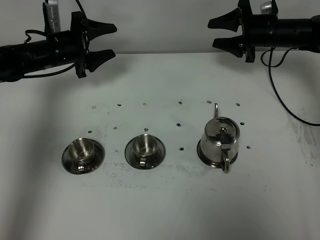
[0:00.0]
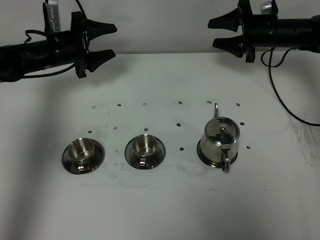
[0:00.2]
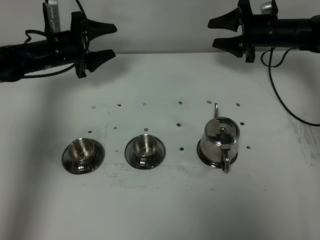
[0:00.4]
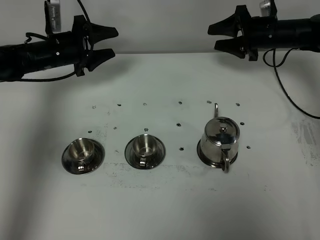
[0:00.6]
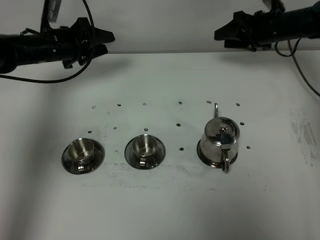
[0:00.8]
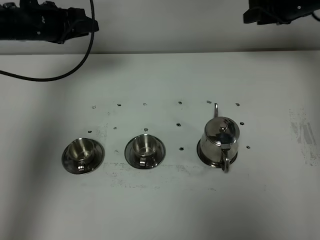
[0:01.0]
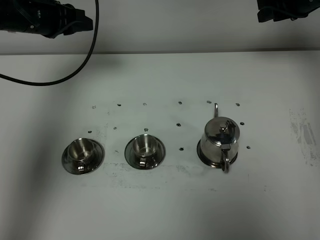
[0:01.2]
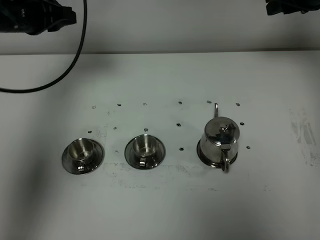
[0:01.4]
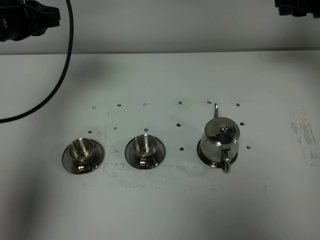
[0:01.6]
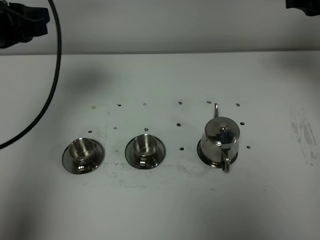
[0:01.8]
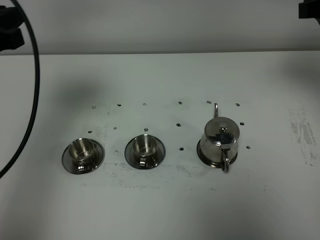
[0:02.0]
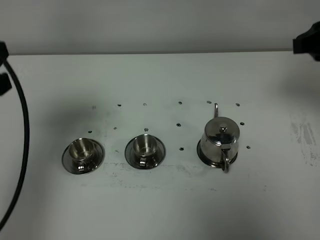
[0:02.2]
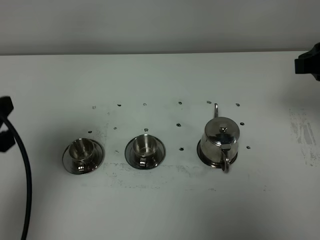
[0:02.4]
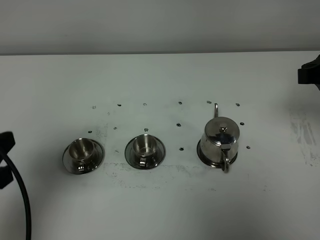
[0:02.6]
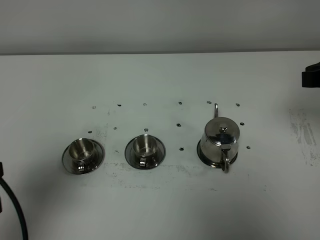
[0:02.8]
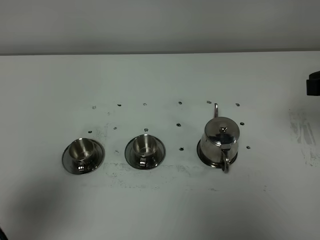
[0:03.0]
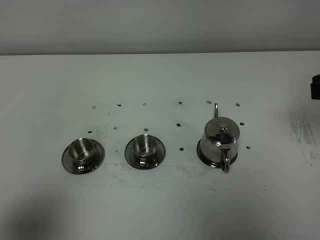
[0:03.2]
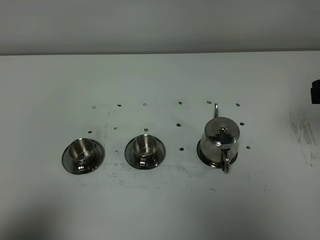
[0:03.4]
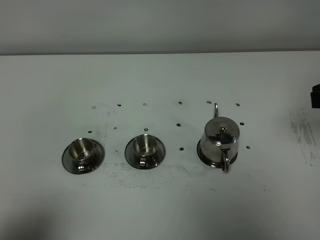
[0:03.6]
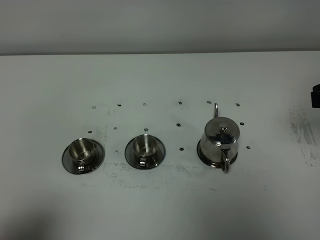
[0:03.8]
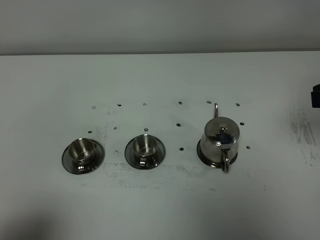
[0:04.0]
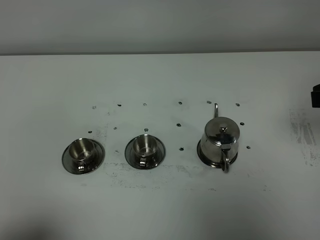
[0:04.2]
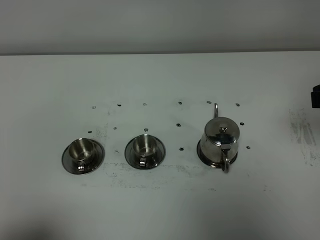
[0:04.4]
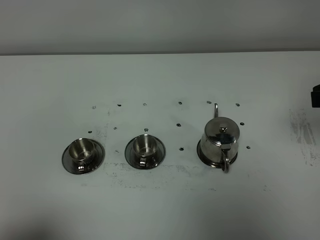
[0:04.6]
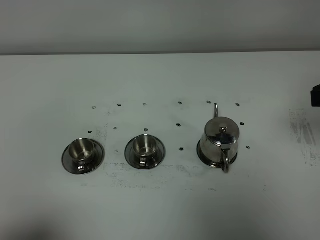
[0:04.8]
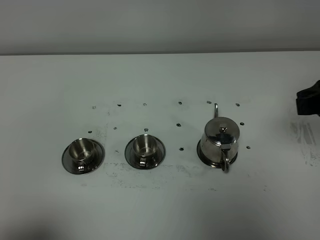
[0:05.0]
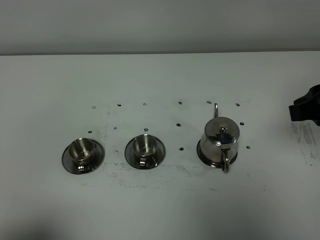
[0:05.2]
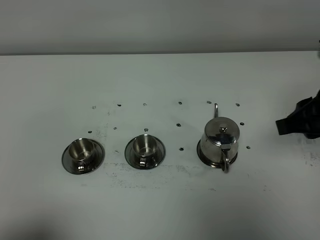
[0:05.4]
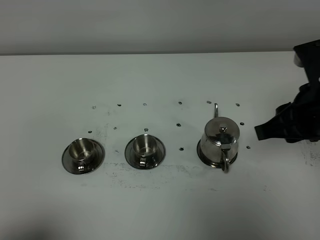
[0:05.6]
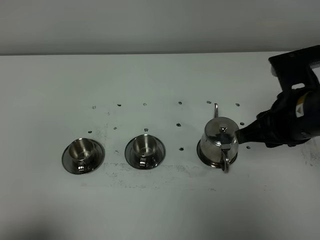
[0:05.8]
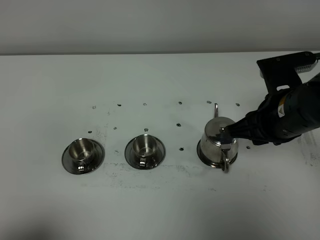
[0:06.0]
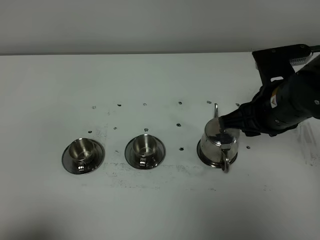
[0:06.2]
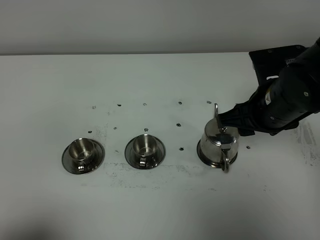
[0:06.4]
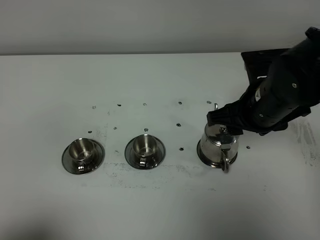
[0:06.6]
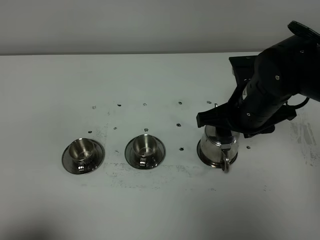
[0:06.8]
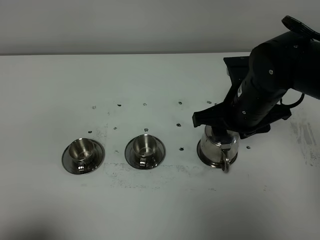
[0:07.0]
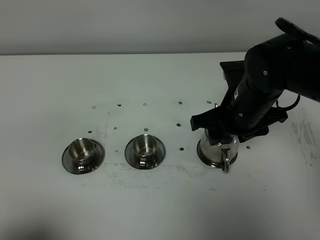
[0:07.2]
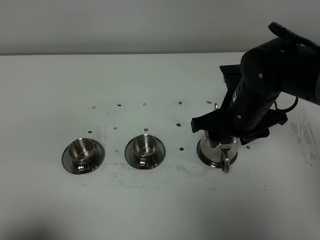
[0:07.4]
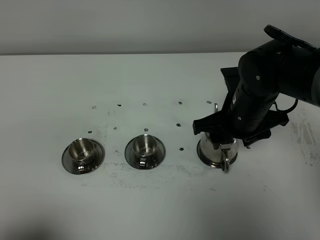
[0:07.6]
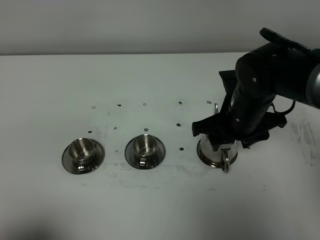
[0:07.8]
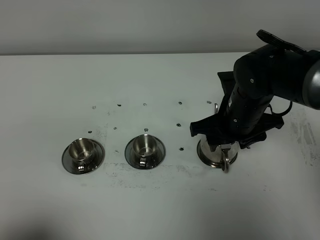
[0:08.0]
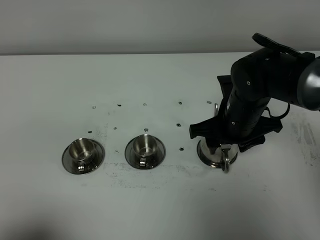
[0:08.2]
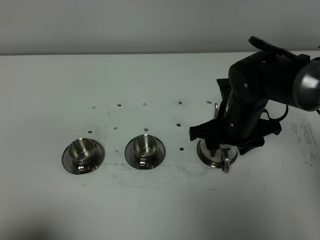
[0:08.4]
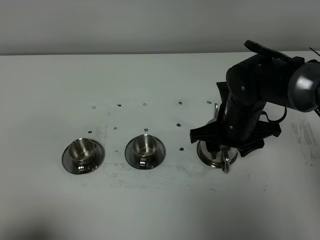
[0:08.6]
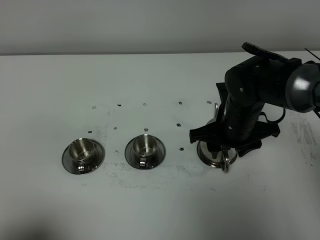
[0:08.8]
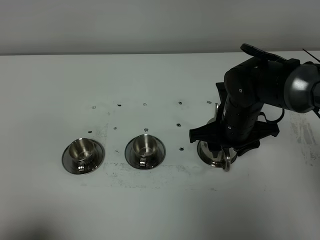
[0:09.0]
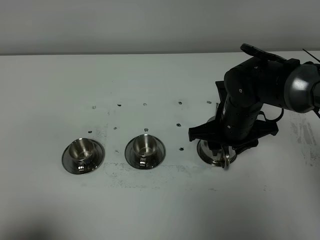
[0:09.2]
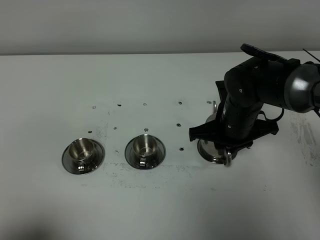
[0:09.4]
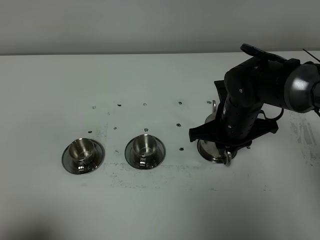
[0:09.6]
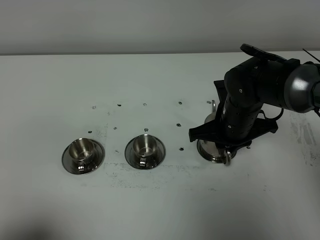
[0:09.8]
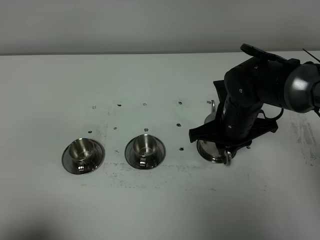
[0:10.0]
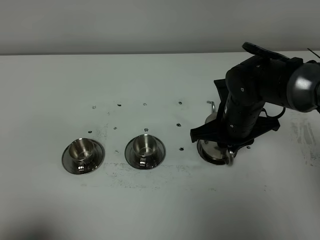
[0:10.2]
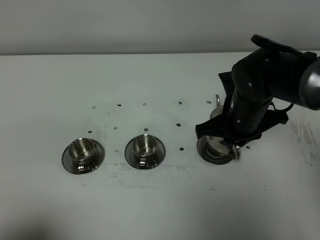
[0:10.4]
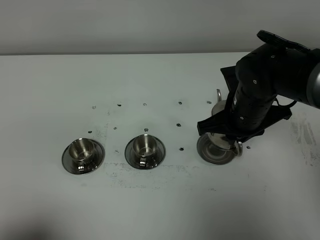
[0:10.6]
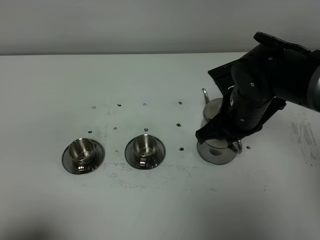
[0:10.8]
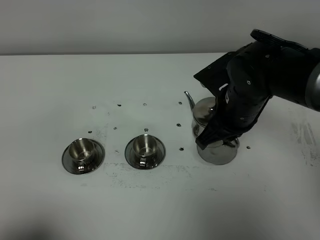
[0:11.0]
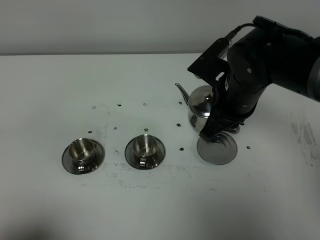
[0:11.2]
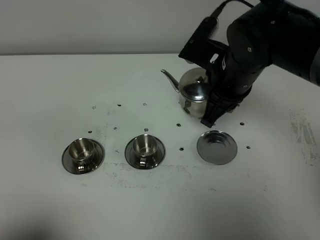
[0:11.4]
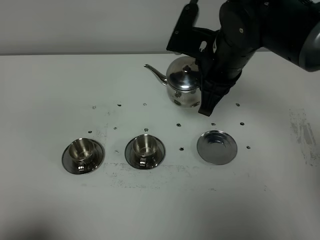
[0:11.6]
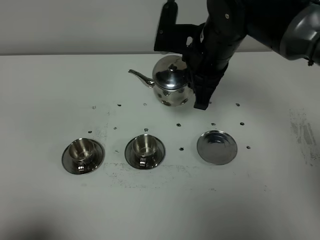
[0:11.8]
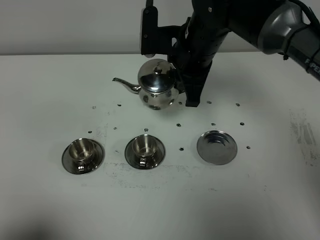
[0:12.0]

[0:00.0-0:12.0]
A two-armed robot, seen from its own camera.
Task of the whole recording: grasp the stainless steel teapot and pour the tea into the two stainless steel teacups one by one, put the stainless steel teapot back in its original place.
Step, 0:00.0 to 0:10.2: Pick up the teapot with the right gripper.
0:00.0 to 0:01.6: The grippers both shift upward and backward by roughly 20 cm. The right gripper closes its fingers. Meanwhile the left gripper closes up.
0:01.6 to 0:03.0: The right gripper heads backward, covering approximately 20 cm. The left gripper shifts some 30 cm backward.
0:03.0 to 0:04.4: The left gripper heads backward, covering some 5 cm.
0:04.4 to 0:06.0: The right gripper heads to the left and downward, covering some 15 cm.
0:06.0 to 0:07.6: The right gripper changes place by roughly 10 cm, and opens.
0:07.6 to 0:09.0: There are only small adjustments of the grippers.
0:09.0 to 0:10.4: The right gripper closes.
0:10.4 to 0:12.0: The right gripper heads upward, to the left and forward, covering some 15 cm.

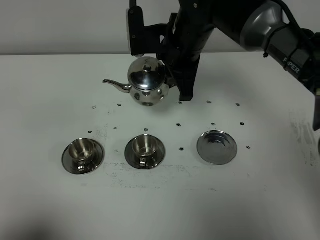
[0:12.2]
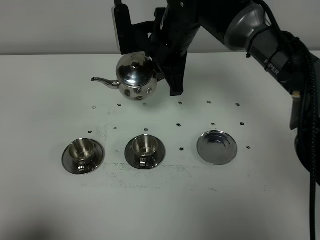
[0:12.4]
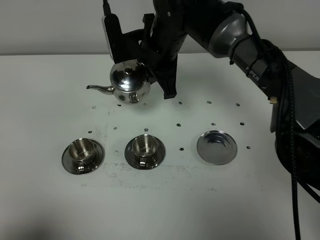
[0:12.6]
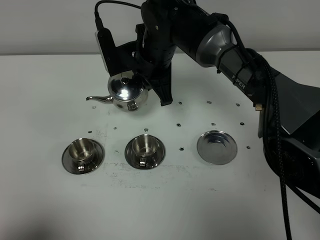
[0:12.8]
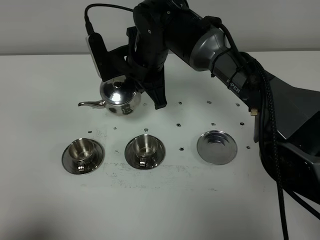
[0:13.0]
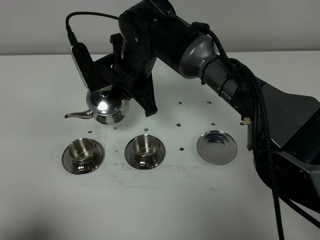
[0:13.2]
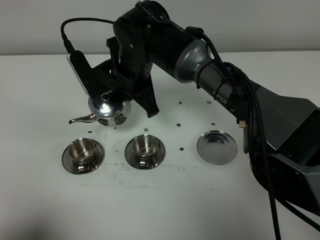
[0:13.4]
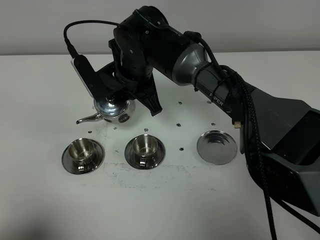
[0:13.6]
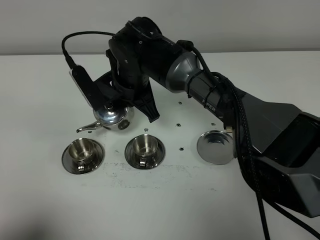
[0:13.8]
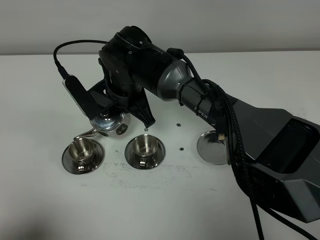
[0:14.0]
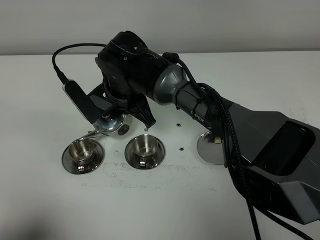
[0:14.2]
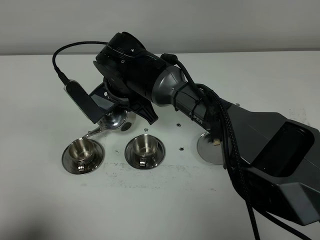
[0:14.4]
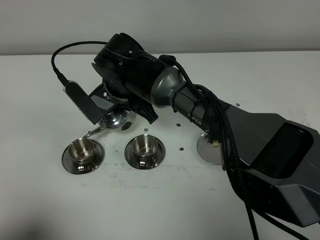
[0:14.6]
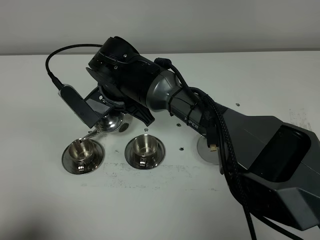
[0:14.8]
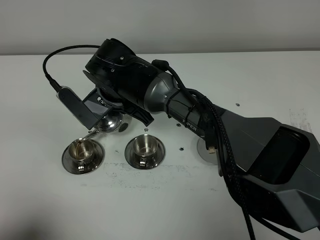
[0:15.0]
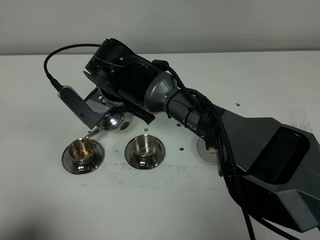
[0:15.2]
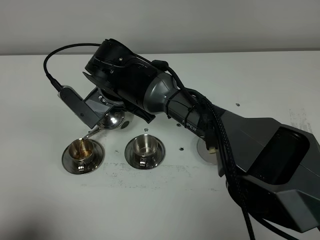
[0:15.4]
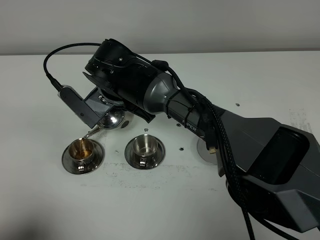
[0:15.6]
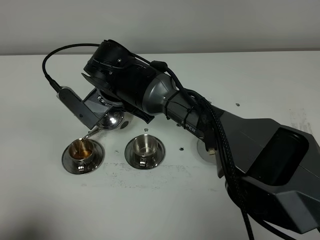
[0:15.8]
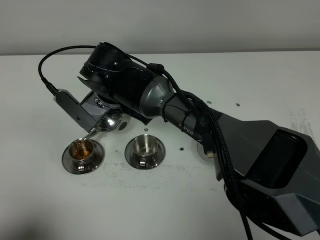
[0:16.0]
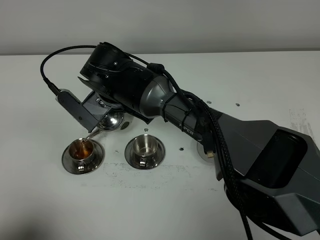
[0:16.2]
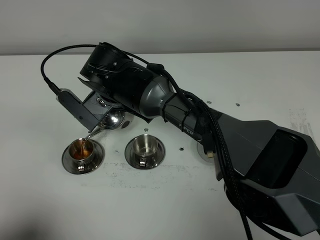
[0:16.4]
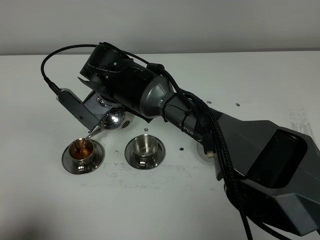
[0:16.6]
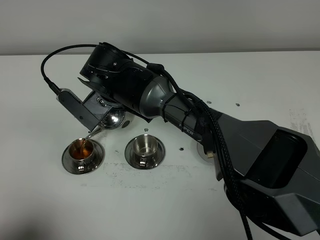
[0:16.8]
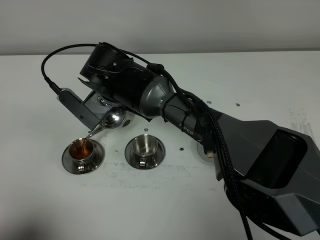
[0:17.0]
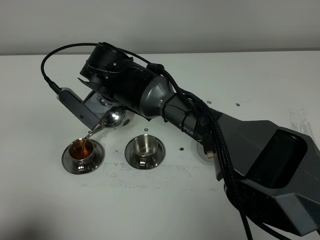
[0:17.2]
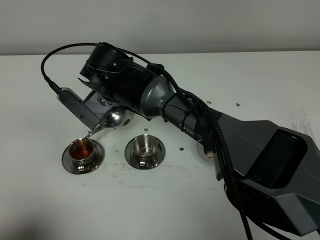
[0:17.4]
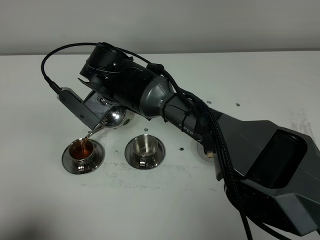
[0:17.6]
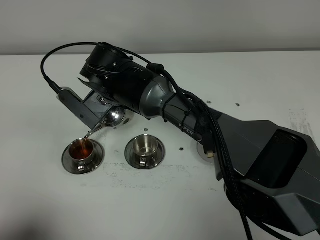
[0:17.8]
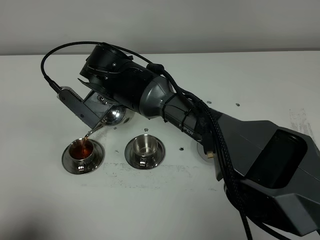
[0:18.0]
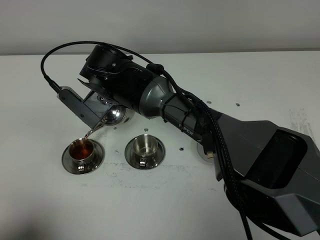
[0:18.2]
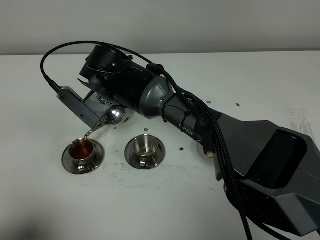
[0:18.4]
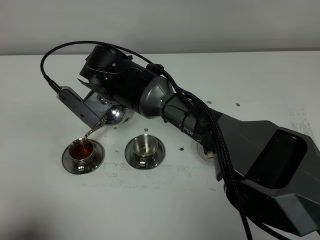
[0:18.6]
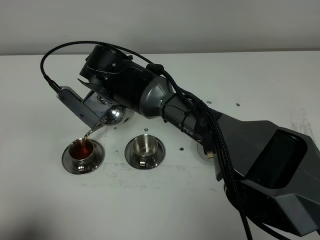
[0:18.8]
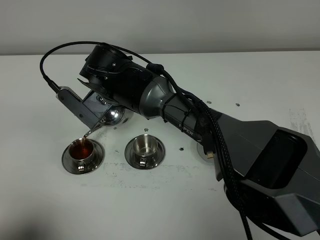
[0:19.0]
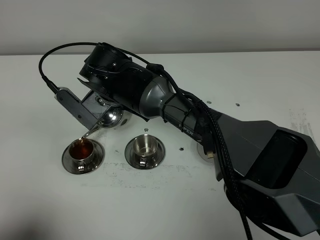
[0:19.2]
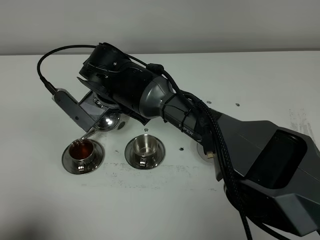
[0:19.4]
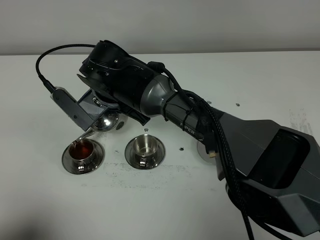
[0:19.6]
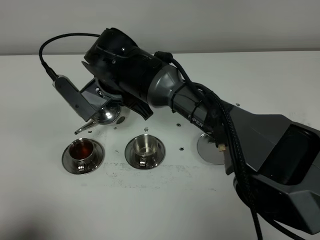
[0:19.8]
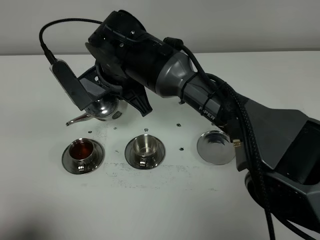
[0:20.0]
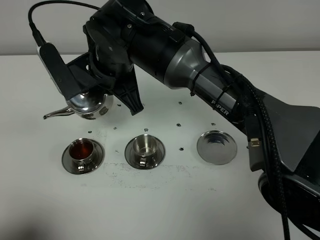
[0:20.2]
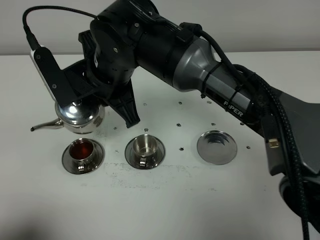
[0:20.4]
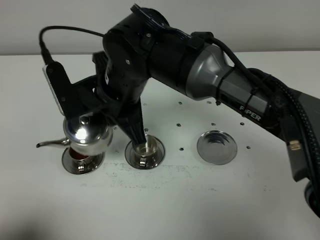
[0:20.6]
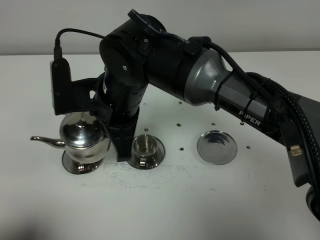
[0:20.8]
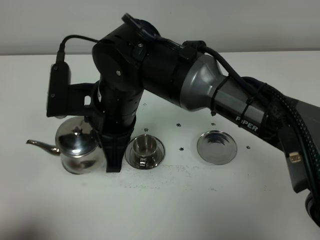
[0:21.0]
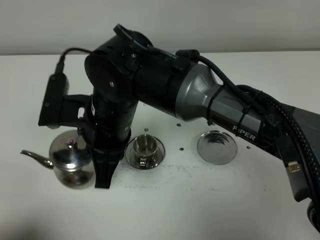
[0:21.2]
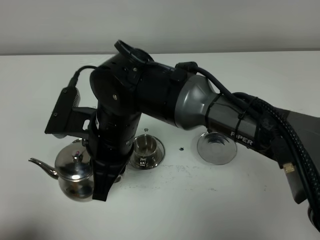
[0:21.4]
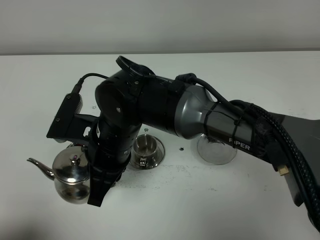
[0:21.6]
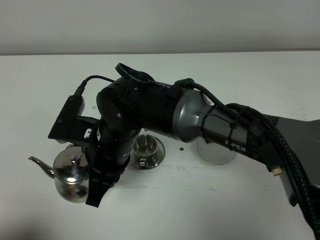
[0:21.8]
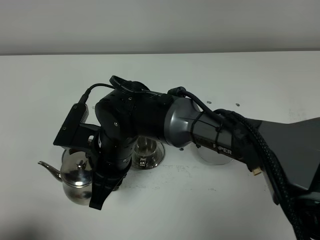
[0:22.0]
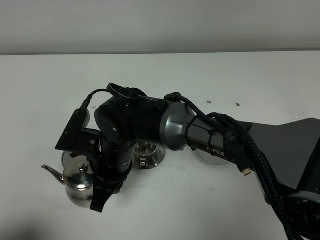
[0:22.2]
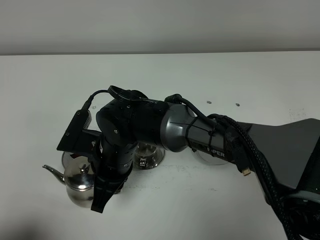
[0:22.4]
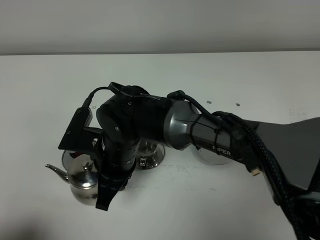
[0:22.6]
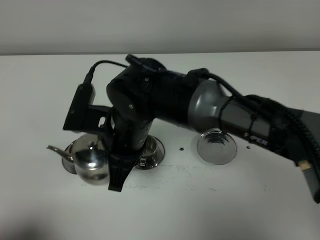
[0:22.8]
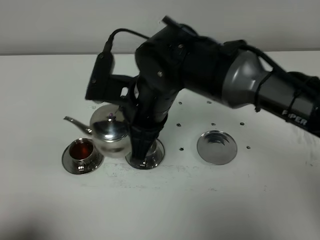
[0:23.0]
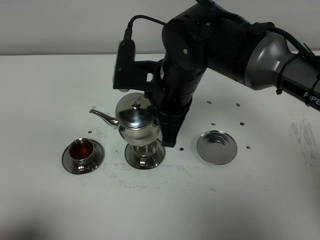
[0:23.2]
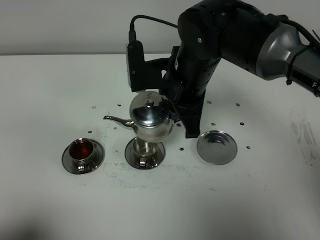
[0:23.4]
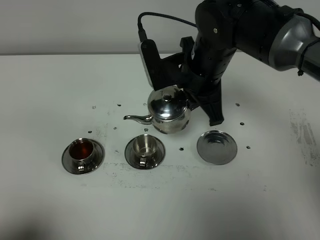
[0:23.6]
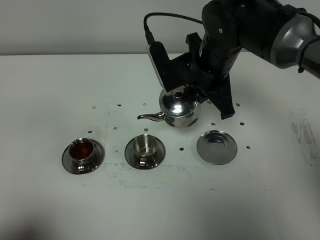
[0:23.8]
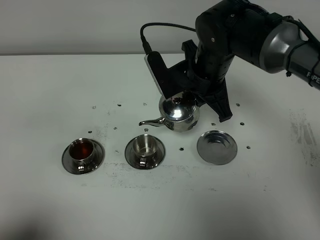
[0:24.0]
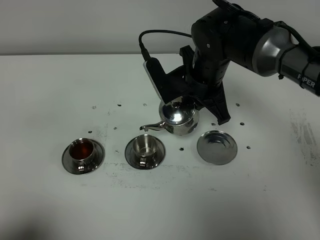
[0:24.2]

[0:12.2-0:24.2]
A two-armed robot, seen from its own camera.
Task of the whole recording: grasp the stainless steel teapot and pour the tea into the two stainless steel teacups one by one, put the stainless steel teapot back in its original place.
0:12.2 to 0:13.8: The right gripper goes some 10 cm to the left and downward.
0:15.2 to 0:16.6: The two grippers keep their place.
0:16.6 to 0:18.2: Neither gripper changes place.
0:18.2 to 0:19.8: The grippers stay close to where they were, moving slightly.
0:19.8 to 0:21.2: The right gripper travels backward by roughly 10 cm.
0:21.2 to 0:22.6: The right gripper is displaced downward by some 5 cm.
0:22.6 to 0:24.2: The right gripper is displaced to the right and forward by about 20 cm.
